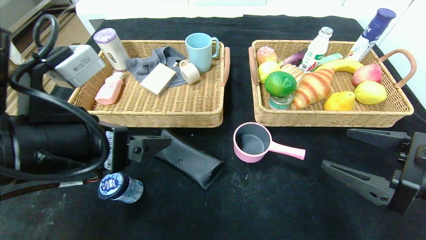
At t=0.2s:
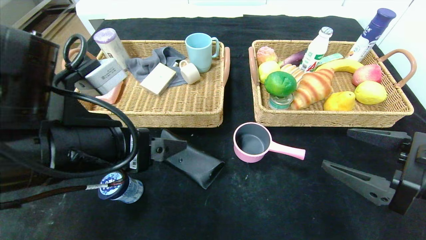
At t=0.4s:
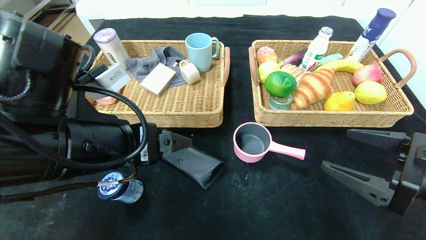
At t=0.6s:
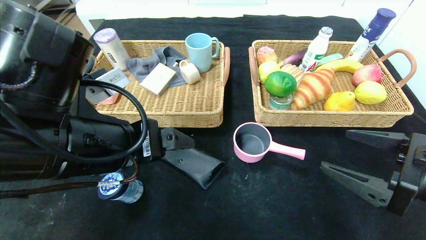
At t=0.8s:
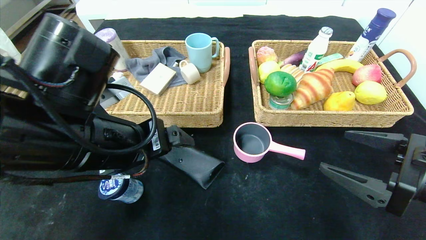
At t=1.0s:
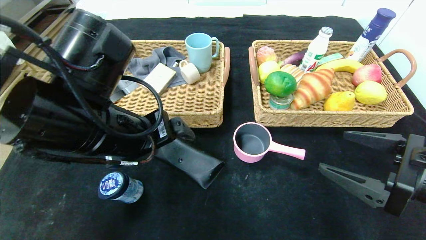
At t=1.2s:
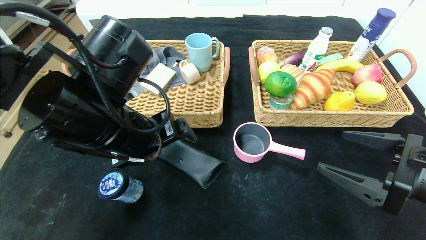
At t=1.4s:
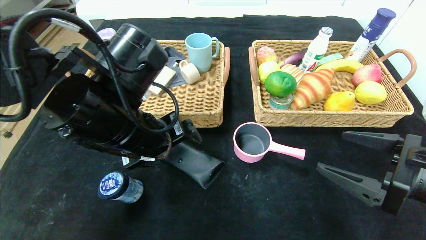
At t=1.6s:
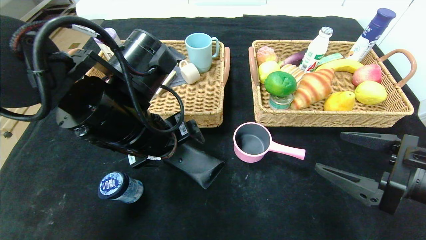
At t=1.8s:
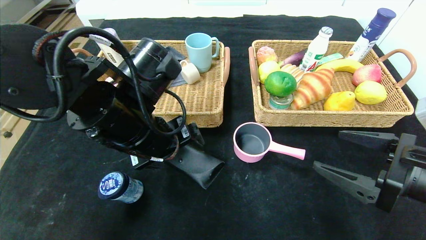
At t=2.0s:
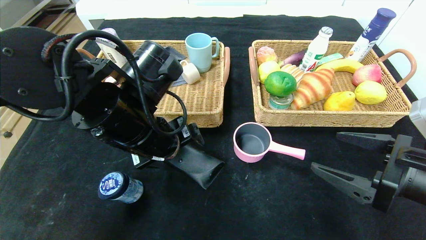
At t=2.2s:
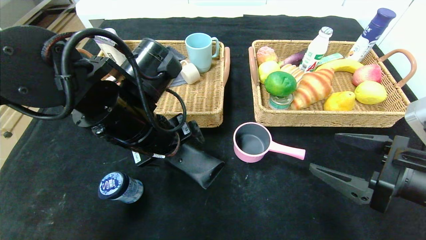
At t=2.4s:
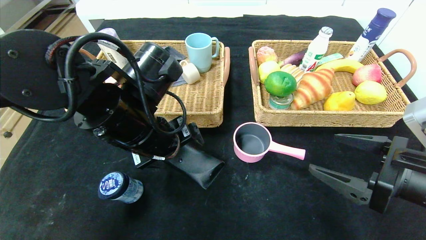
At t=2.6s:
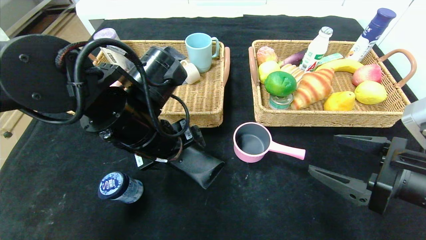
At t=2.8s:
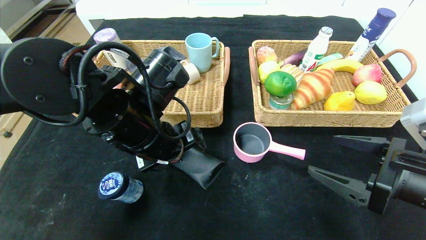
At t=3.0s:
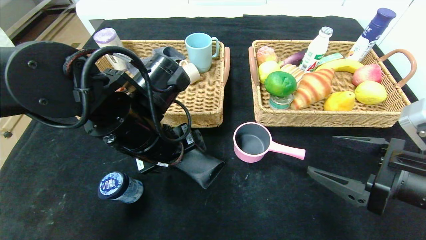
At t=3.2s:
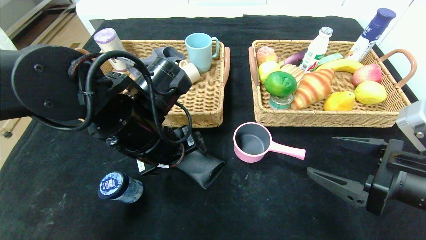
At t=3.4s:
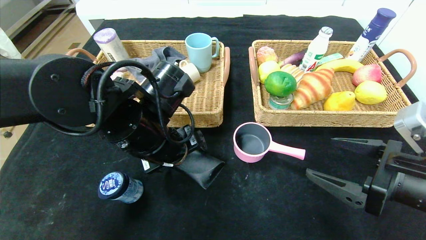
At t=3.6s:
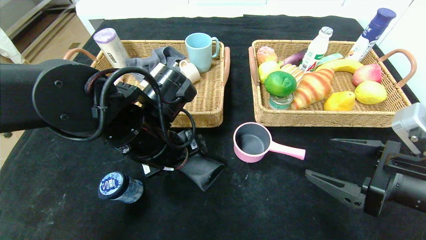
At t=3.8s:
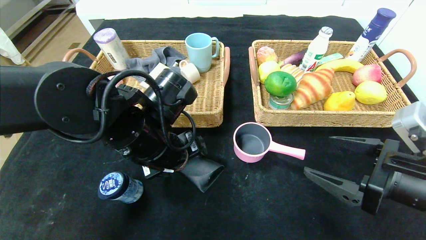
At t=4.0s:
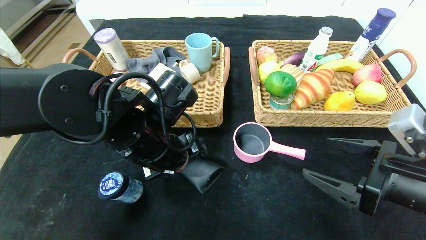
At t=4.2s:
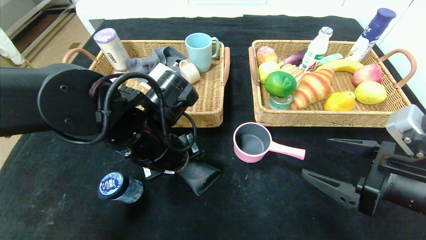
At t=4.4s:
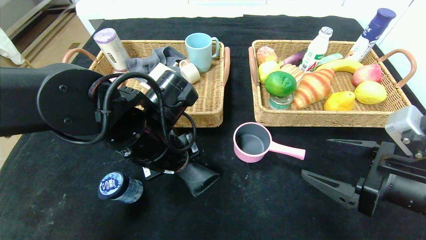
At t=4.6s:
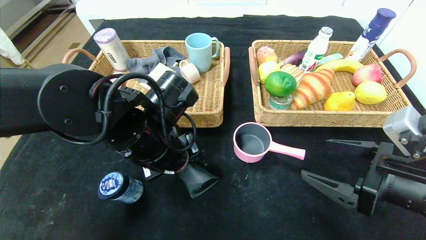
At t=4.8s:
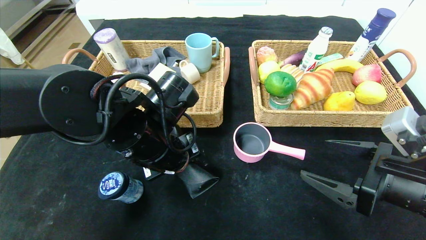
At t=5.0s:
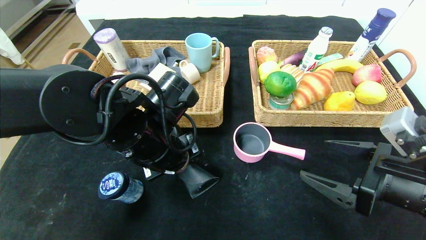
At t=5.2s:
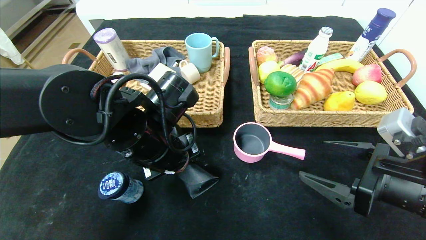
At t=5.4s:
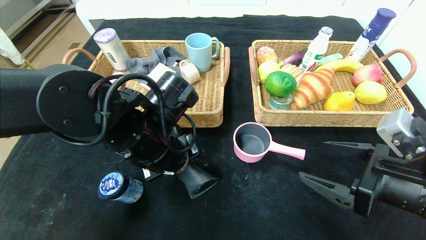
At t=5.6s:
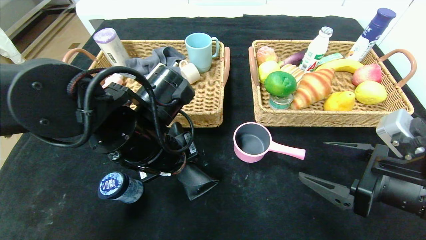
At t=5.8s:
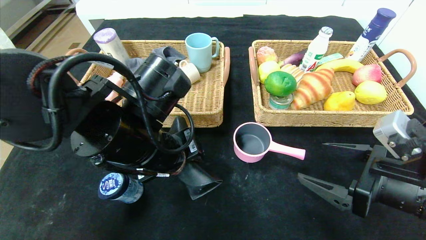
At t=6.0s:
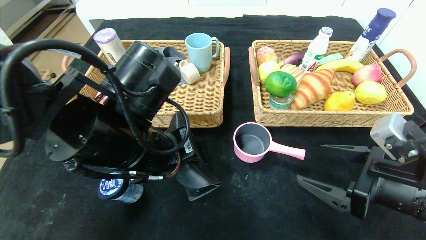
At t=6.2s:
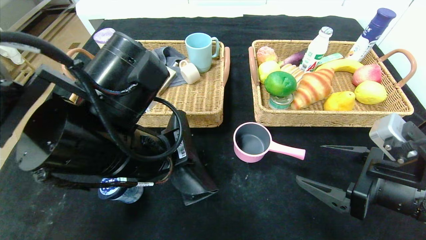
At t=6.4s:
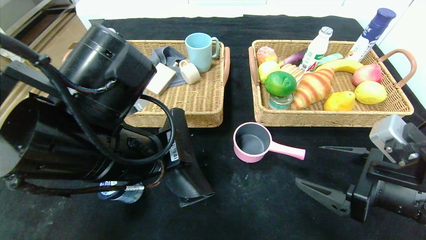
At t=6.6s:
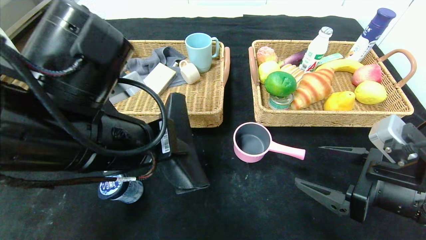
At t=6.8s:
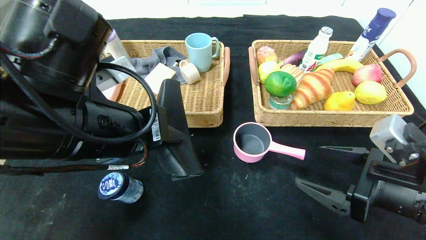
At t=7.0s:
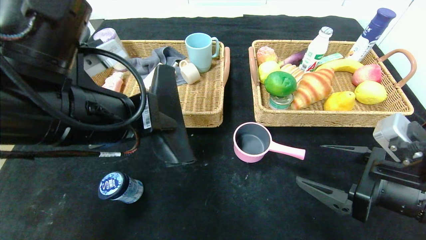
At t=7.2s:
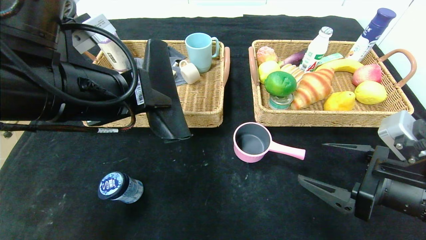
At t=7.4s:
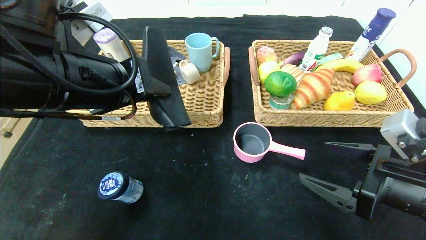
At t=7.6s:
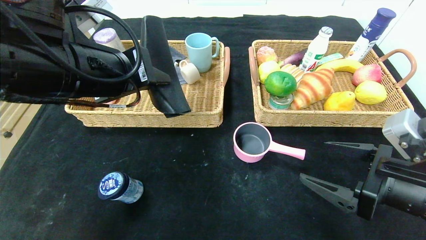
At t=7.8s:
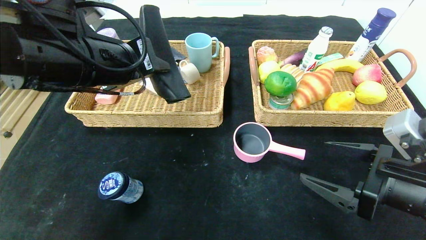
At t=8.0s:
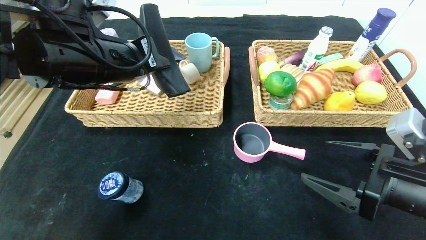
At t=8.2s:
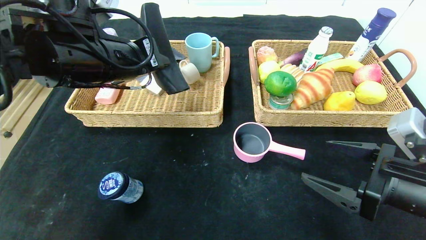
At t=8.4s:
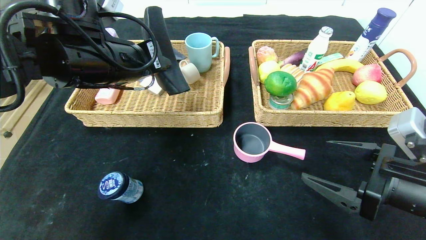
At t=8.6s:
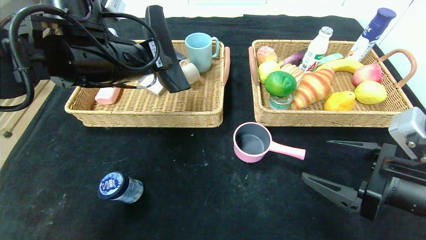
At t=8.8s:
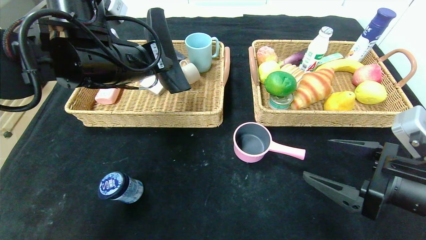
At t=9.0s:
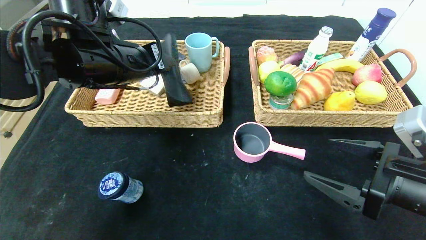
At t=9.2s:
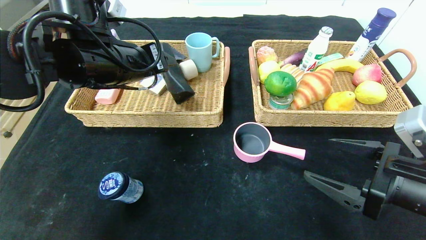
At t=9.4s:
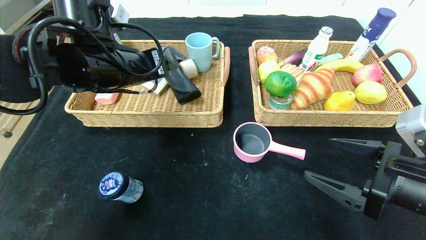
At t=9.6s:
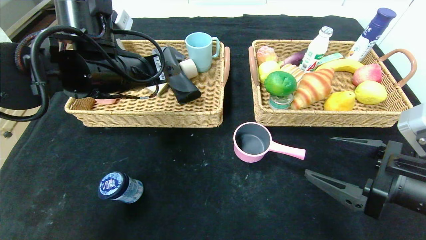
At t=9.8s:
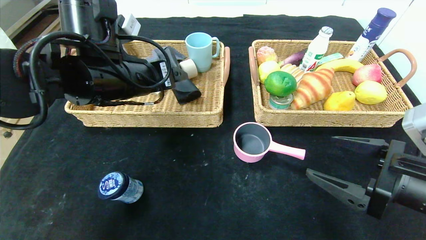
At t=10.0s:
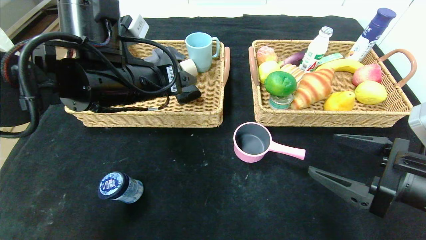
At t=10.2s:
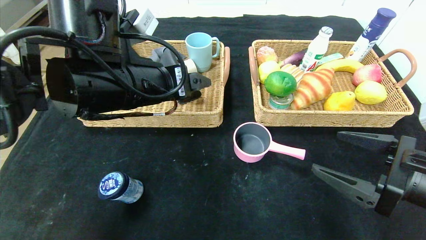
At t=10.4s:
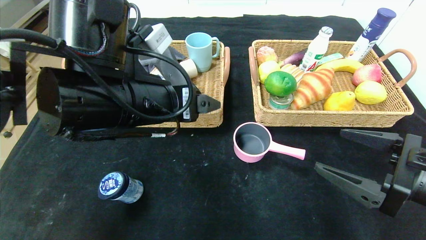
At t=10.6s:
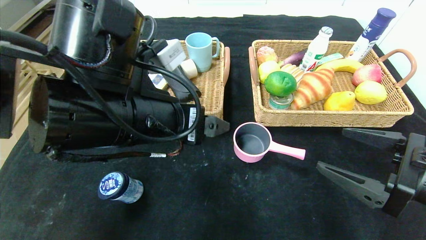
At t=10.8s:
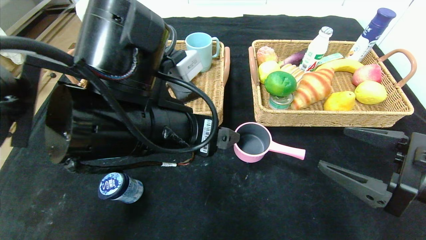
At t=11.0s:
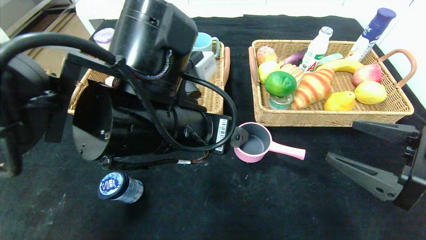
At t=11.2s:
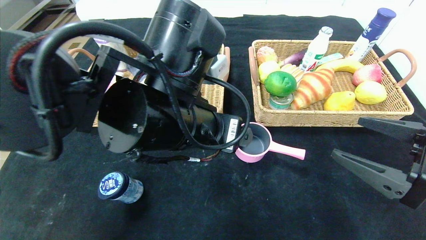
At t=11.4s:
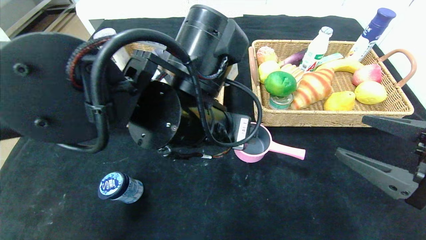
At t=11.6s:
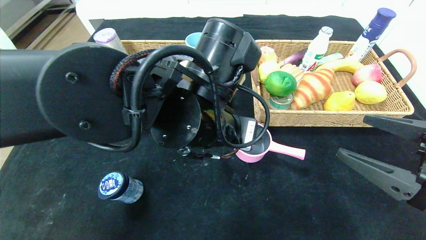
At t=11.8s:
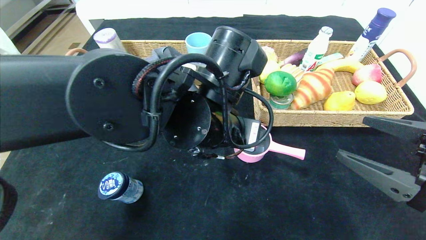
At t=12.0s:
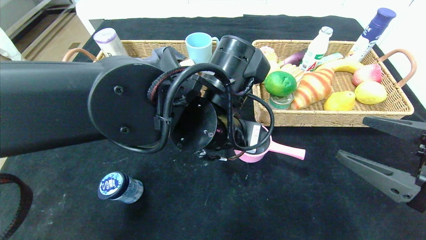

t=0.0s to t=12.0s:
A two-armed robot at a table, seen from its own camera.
Step, t=0.0s to t=9.4s: Grasp the glasses case and put it in the left basket.
t=0.0s to t=1.6s: The left gripper travels forward and to the right by about 10 cm.
t=1.6s to t=3.0s: The grippers stay close to where they were, moving slightly.
t=3.0s to t=4.4s: The left gripper closes.
t=4.4s to t=6.0s: The left gripper travels backward by some 5 cm.
t=6.0s to t=7.6s: The left gripper travels upward and to the left by some 10 cm.
t=7.6s to t=9.0s: The left gripper travels forward by roughly 5 cm.
t=9.0s to t=10.4s: The left gripper is displaced backward and to the right by roughly 10 cm, and opens up.
t=10.4s to t=12.0s: The left gripper heads to the right, covering approximately 10 cm.

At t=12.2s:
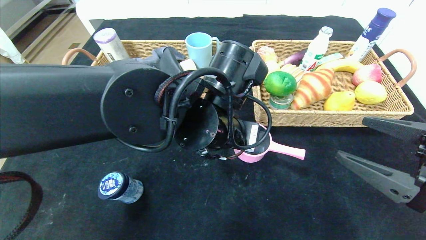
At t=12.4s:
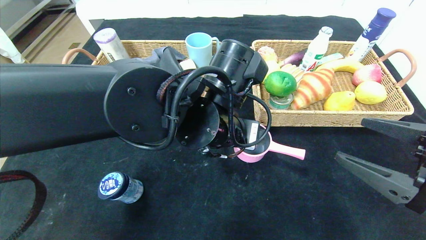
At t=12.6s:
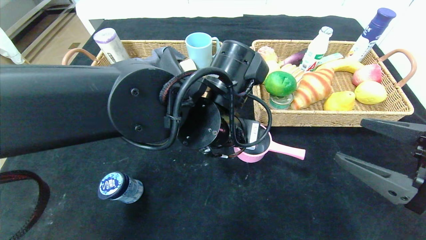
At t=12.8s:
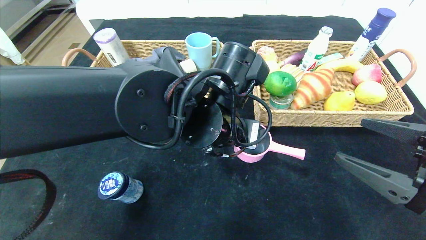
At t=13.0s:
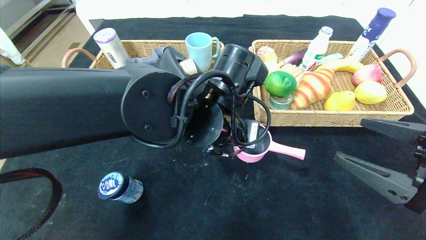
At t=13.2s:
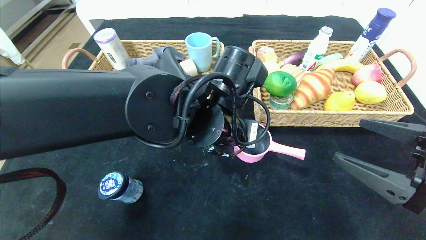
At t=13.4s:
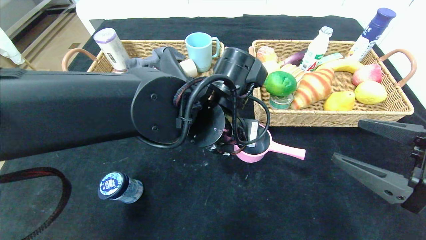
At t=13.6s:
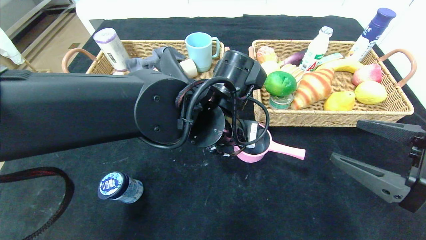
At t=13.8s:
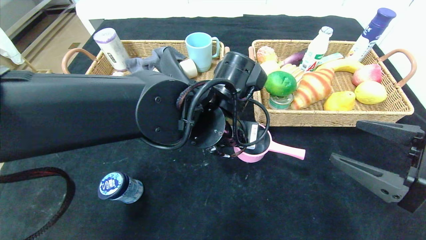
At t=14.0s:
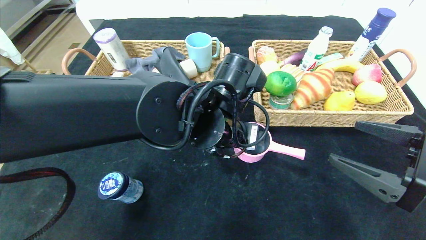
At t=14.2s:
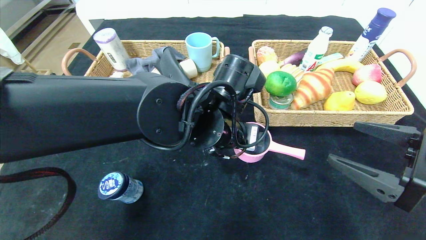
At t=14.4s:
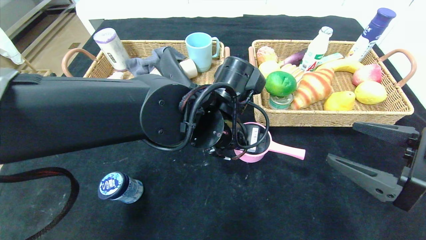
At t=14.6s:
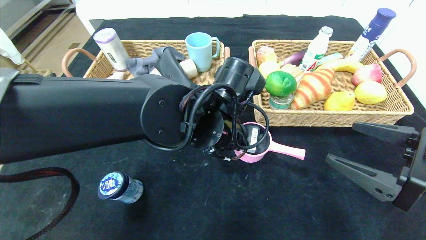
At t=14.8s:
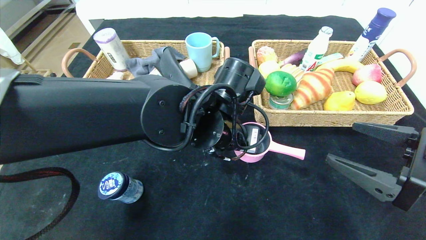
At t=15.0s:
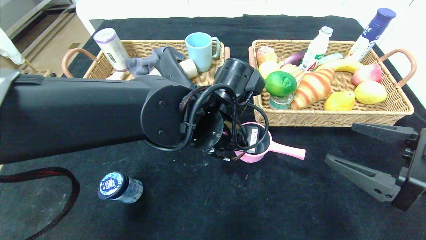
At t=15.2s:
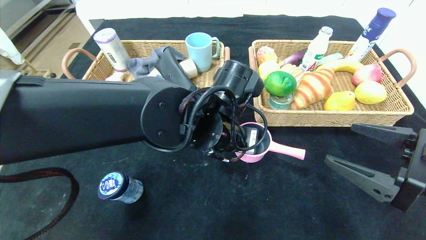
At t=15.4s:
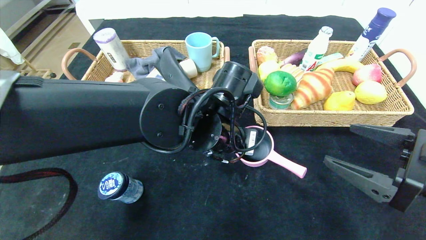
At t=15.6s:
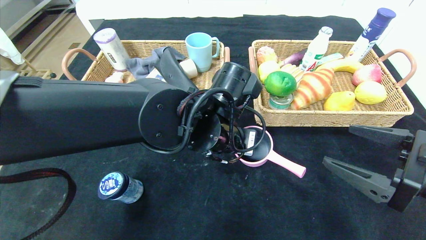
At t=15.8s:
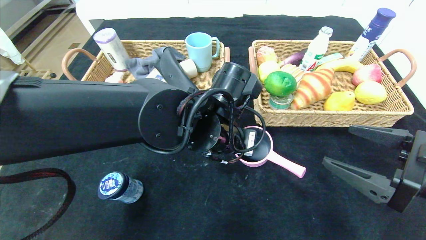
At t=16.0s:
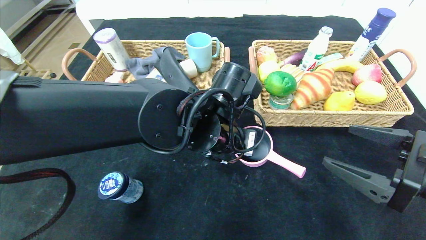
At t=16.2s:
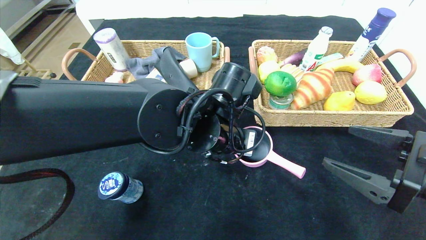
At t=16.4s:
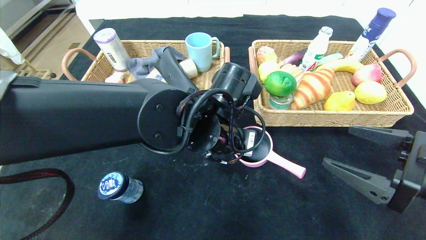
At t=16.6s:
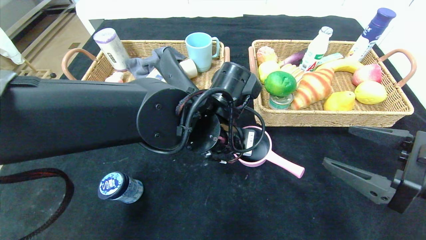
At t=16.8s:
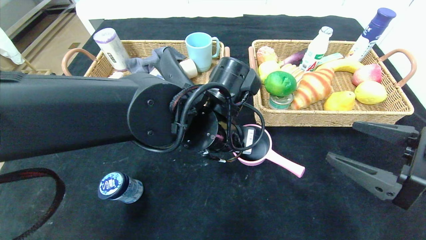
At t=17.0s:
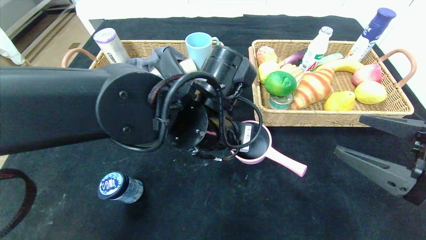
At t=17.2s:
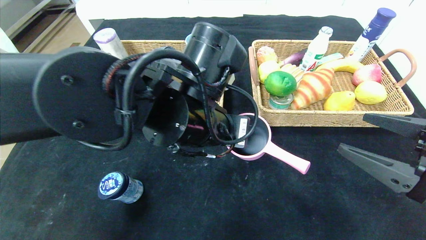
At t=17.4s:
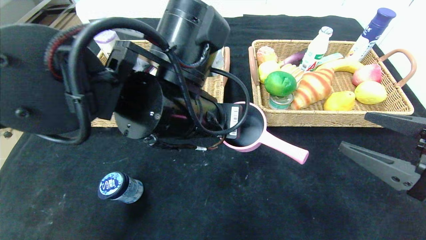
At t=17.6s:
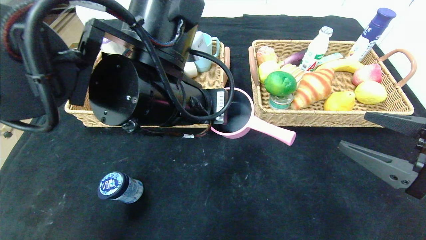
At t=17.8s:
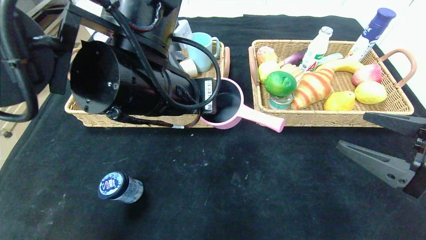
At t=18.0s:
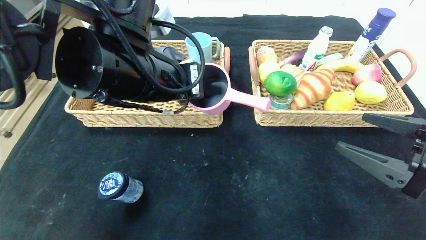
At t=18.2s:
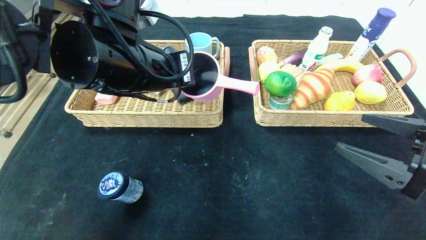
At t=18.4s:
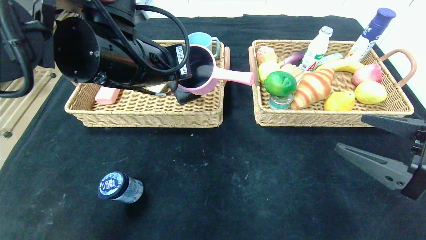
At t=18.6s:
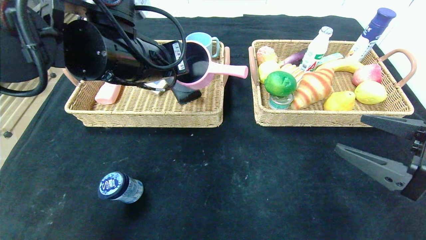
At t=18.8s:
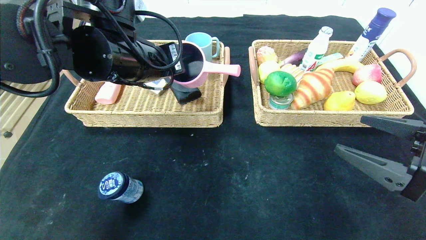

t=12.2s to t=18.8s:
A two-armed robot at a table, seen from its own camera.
t=12.2s to t=13.8s: The grippers stay close to where they were, moving slightly.
t=13.8s to t=15.4s: The left gripper closes up.
t=15.4s to t=17.2s: The left gripper shifts by about 5 cm.
t=17.2s to t=18.8s: The left gripper goes some 15 cm to the left, forward and upward.
